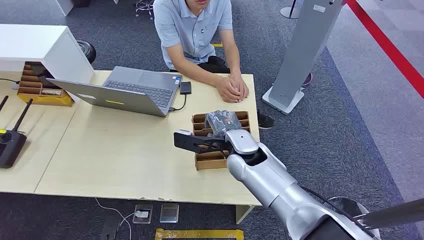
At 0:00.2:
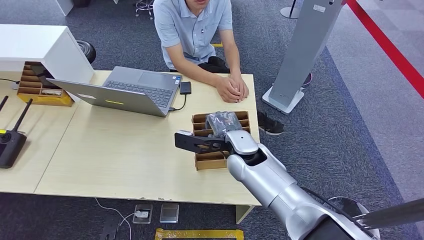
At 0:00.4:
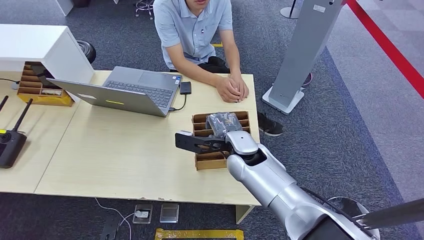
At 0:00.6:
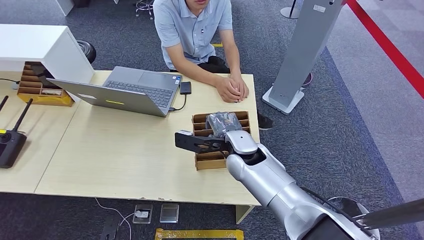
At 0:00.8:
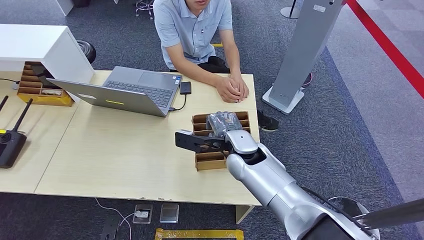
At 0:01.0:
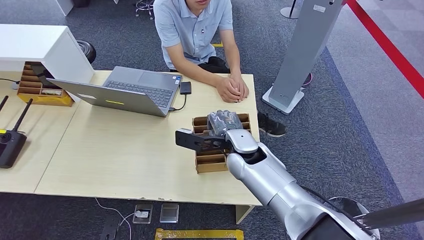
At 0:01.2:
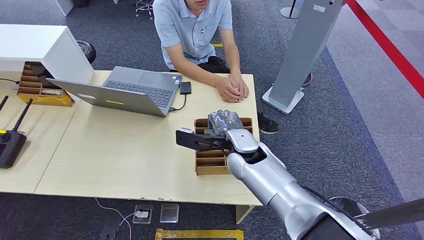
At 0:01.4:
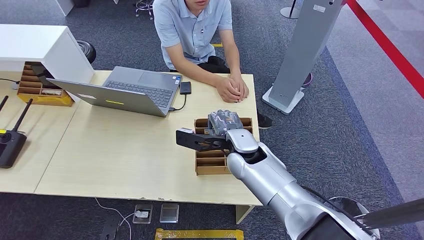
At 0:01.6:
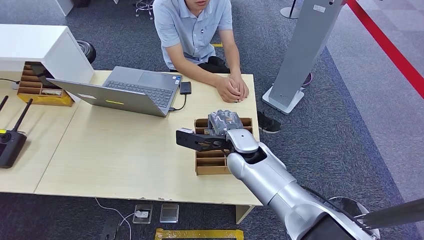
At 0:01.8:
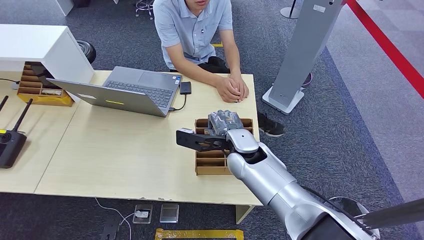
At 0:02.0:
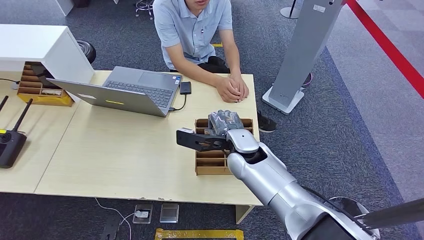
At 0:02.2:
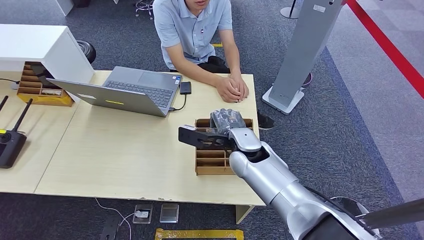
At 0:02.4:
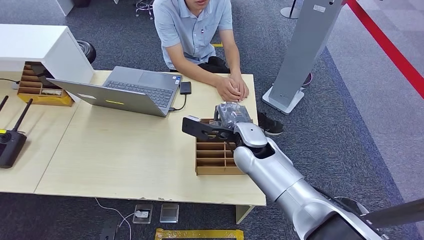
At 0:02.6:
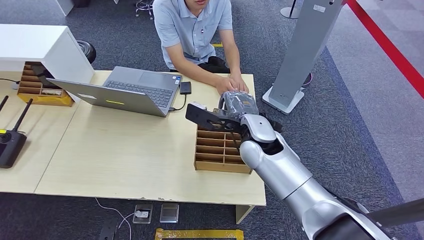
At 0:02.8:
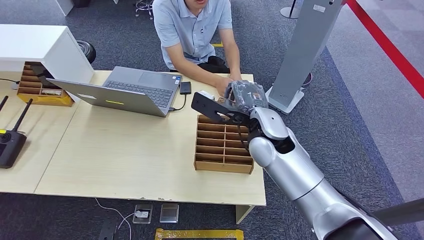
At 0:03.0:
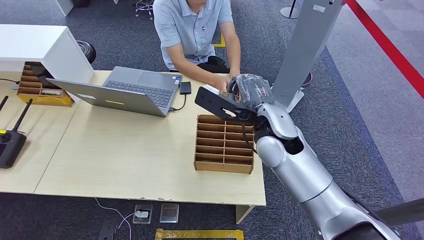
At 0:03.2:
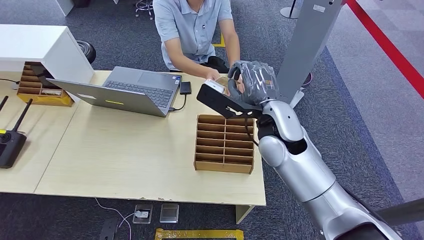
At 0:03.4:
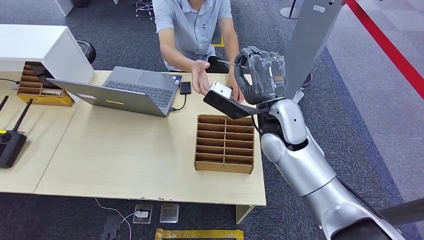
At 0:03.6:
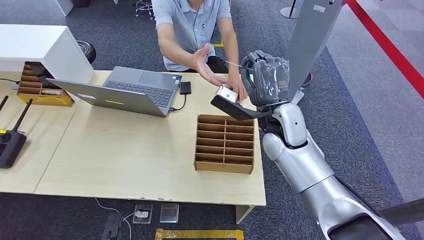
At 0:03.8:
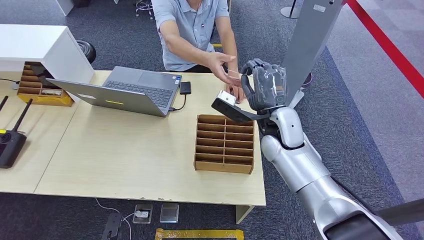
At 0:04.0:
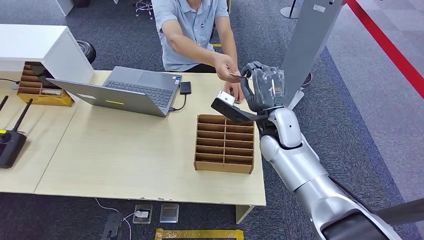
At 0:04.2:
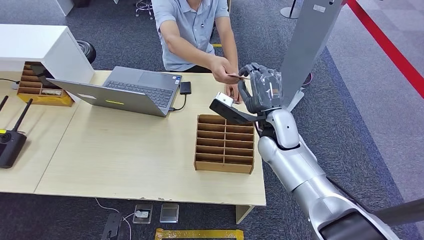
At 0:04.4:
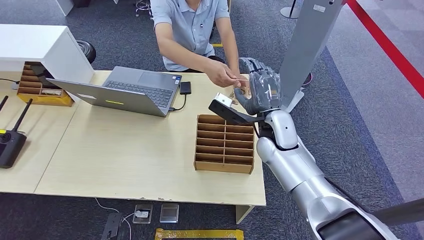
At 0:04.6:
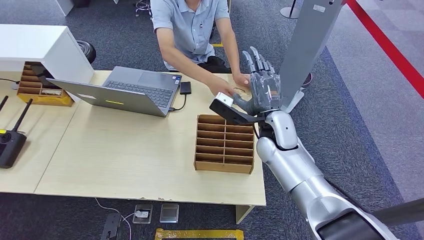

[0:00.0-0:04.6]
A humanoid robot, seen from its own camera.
Step, 0:00.0 to 0:02.6: Pick up the key card from the card box.
Step, 0:03.2 to 0:04.6: Hand the key card to the target.
0:01.6 to 0:03.0: The right hand is displaced upward by some 10 cm.
0:03.0 to 0:04.6: The right hand moves downward, approximately 5 cm.

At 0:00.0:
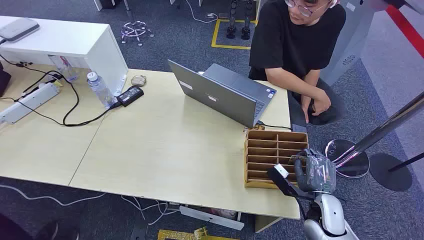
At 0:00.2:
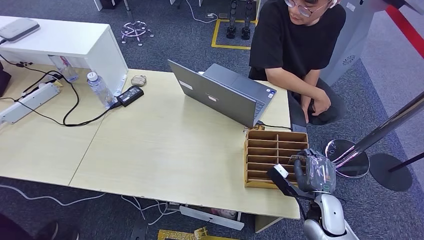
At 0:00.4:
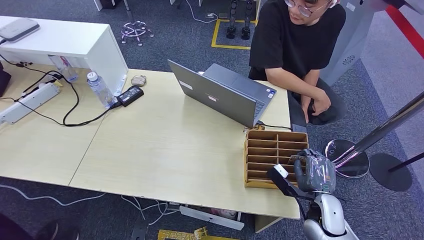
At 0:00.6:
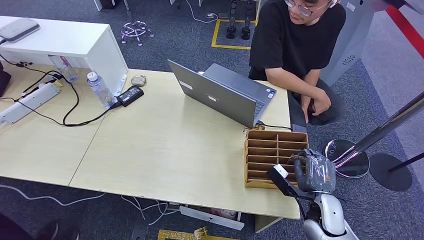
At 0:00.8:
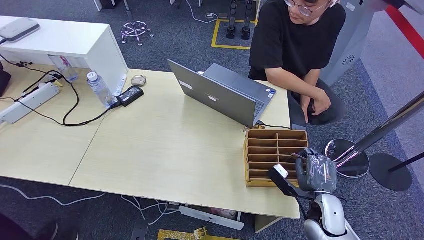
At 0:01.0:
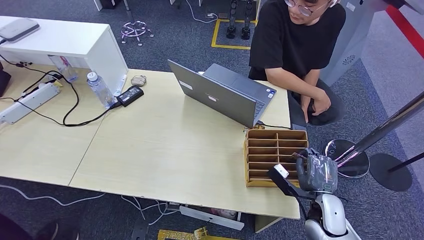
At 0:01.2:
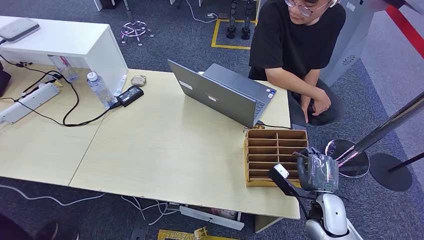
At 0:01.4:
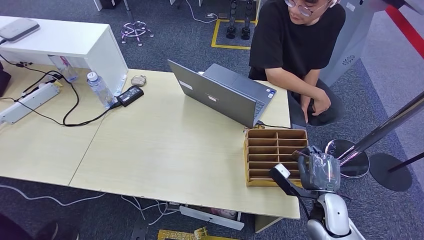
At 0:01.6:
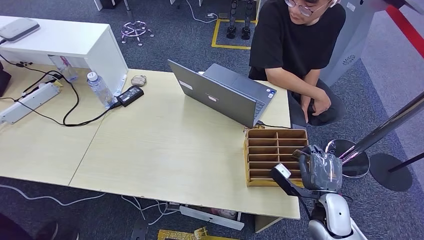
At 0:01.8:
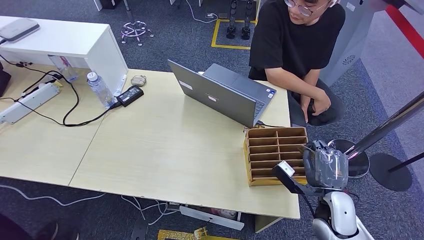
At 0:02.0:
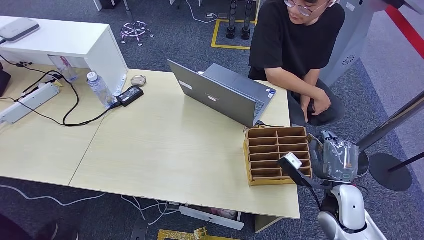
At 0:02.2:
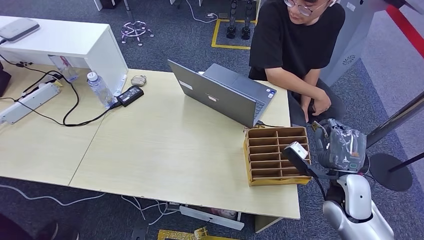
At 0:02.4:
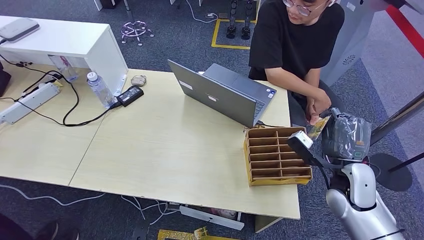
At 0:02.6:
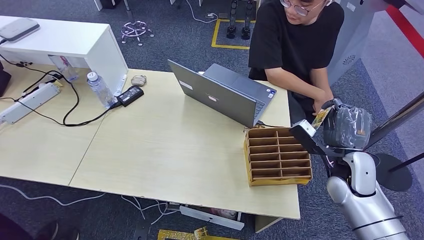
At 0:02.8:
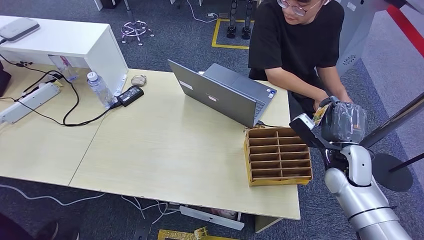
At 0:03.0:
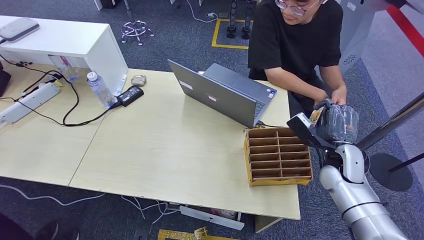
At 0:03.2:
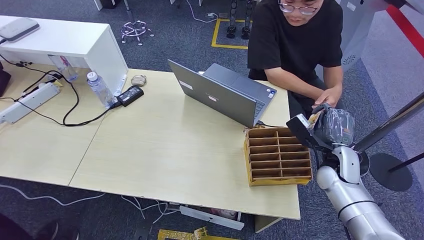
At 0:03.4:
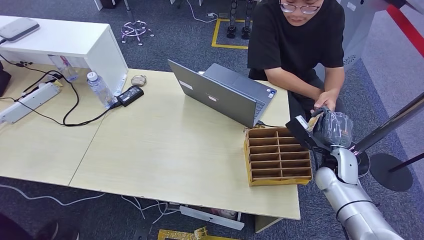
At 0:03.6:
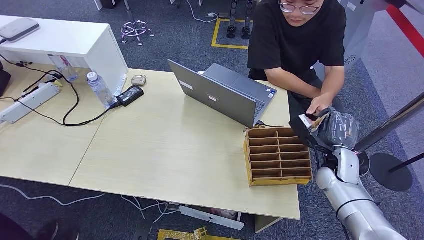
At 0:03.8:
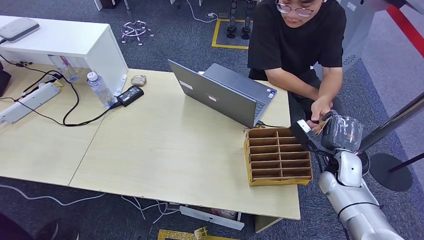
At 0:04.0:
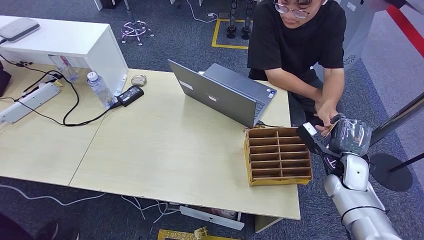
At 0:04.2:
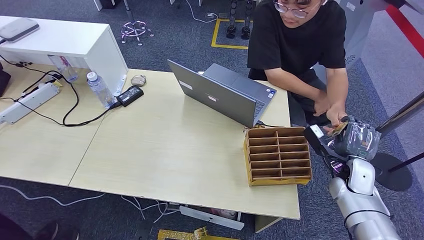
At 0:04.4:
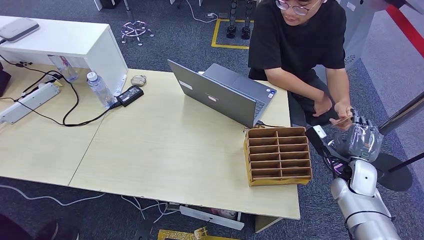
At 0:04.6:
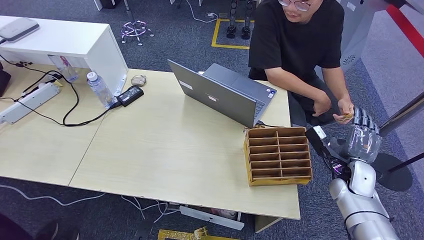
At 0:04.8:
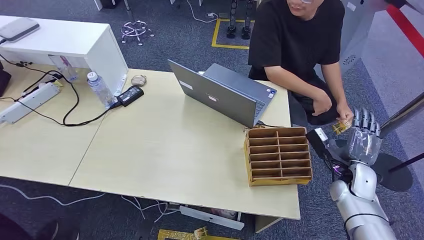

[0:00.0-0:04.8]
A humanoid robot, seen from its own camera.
Step, 0:00.0 to 0:02.2: Pick up the key card from the card box.
Step, 0:02.4 to 0:04.6: Hand the key card to the target.
0:01.6 to 0:03.2: The right hand shifts about 15 cm forward and upward.
0:03.2 to 0:04.8: The right hand is displaced to the right by approximately 5 cm.
